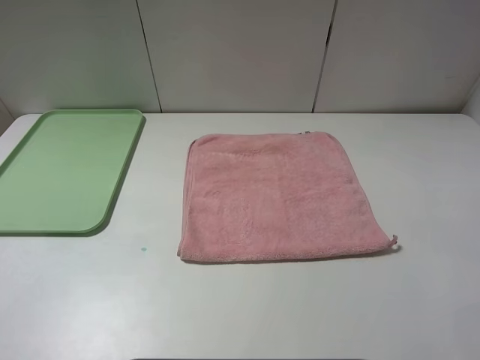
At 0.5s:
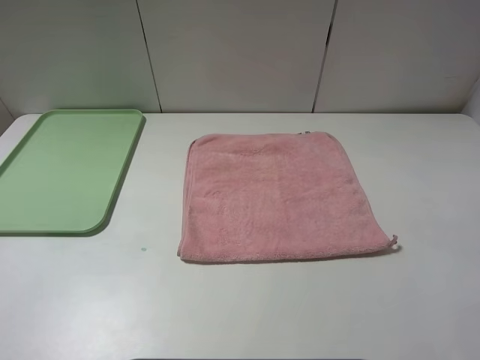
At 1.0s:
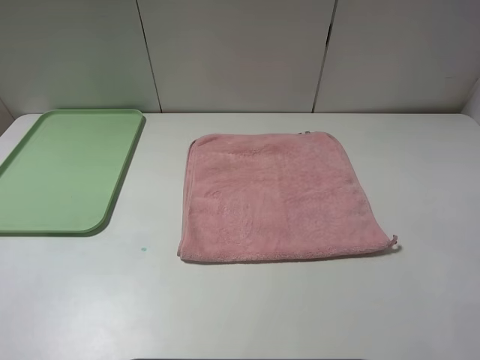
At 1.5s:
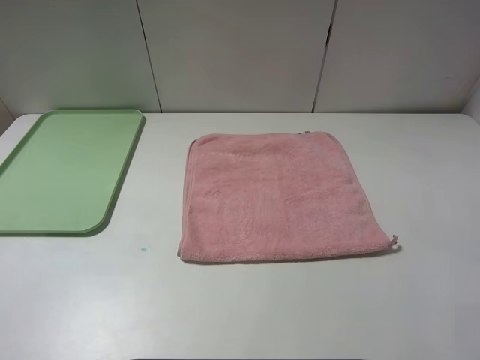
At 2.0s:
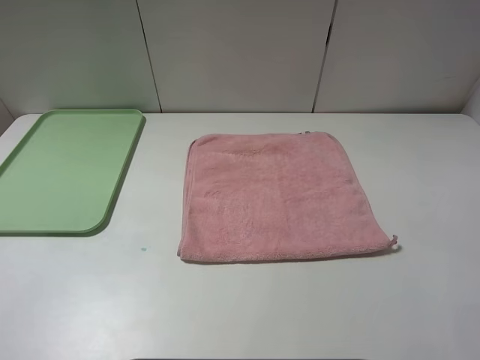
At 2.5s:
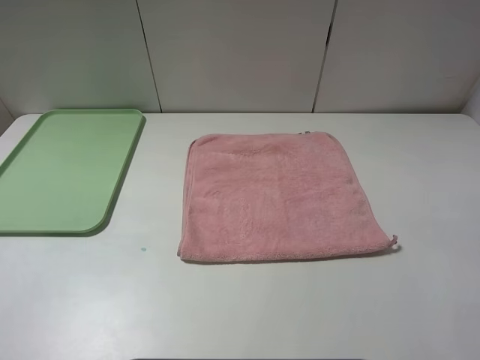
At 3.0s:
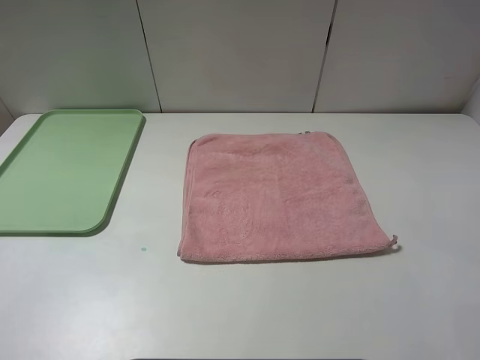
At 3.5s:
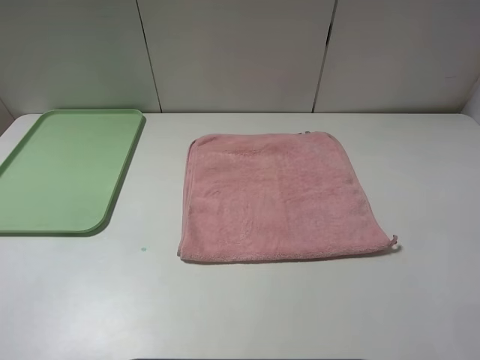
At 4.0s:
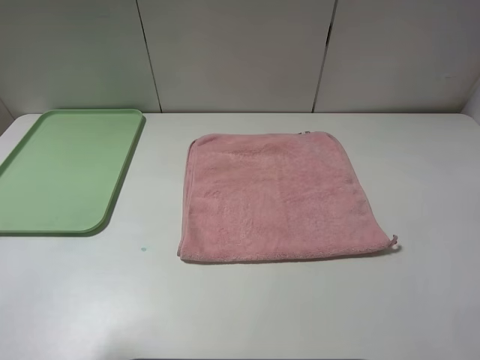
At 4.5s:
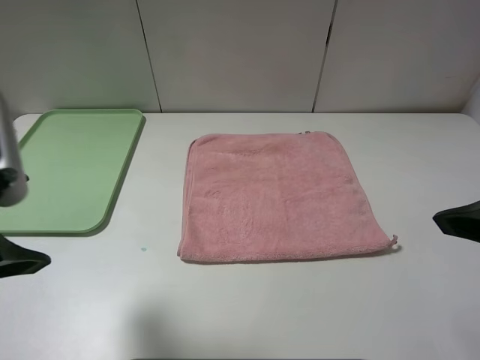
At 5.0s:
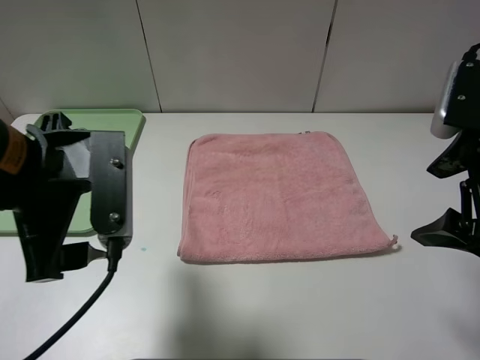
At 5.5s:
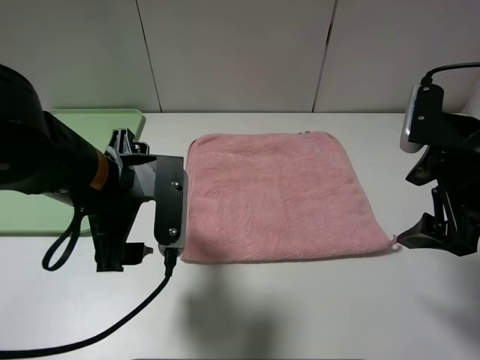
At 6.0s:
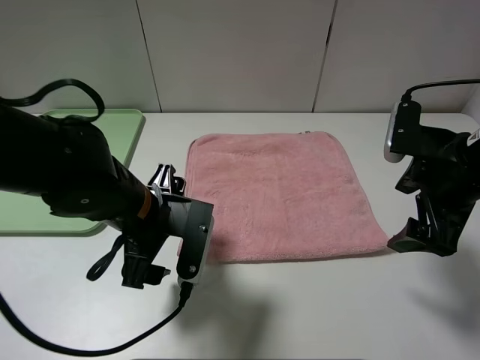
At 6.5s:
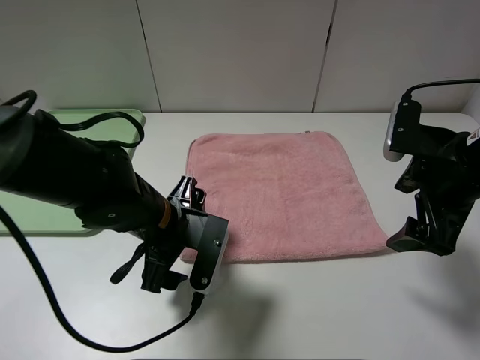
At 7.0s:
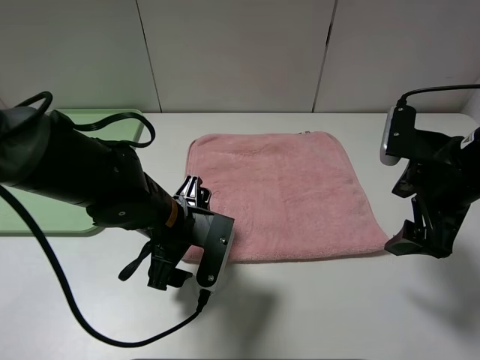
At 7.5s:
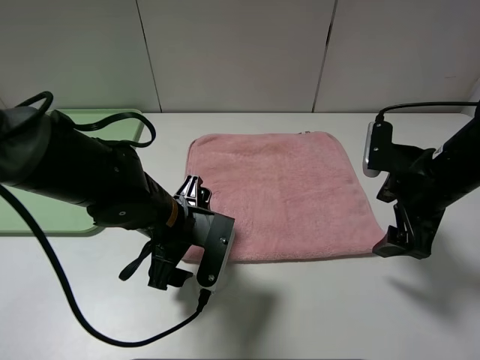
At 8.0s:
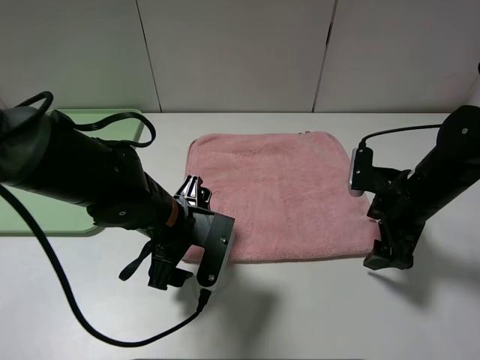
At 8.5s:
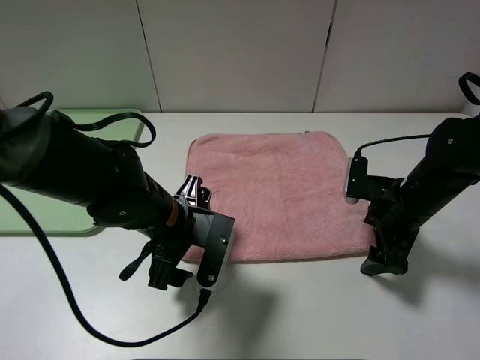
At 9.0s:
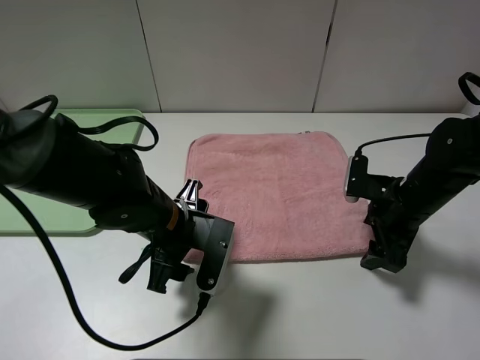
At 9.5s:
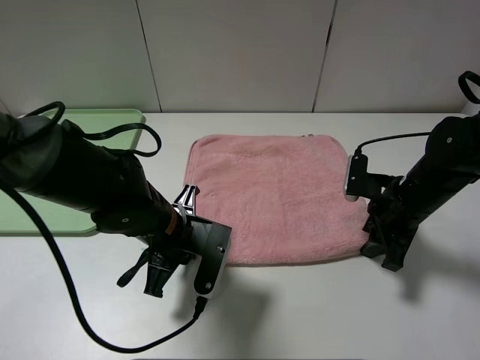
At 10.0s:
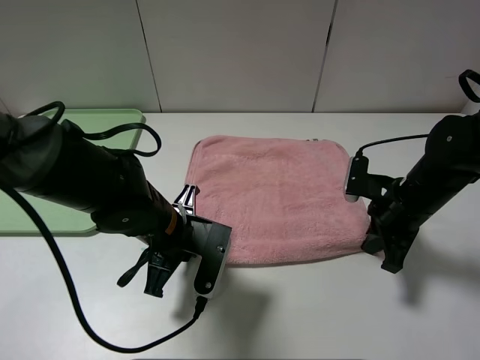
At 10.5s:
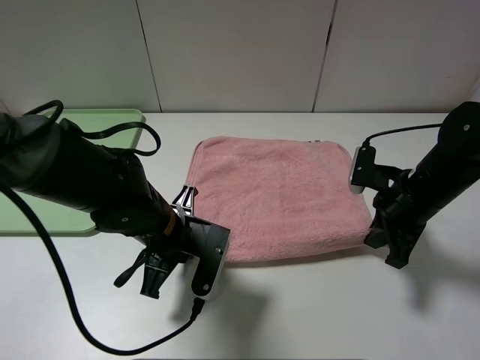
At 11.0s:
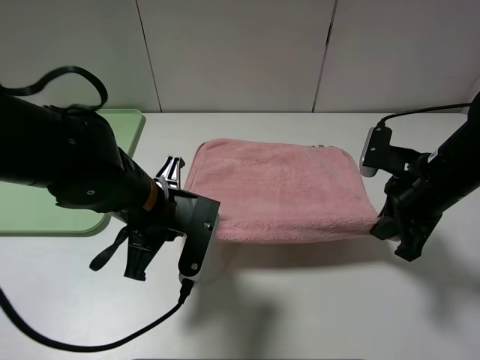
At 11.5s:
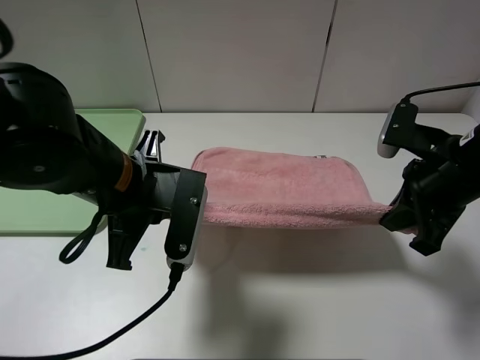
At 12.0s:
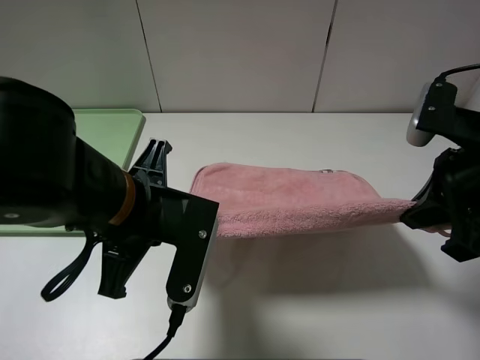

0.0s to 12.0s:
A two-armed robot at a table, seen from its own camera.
0.0s to 2.0s: Both grippers stay about where they are.
4.0s to 6.0s: The right gripper moves forward and downward, roughly 20 cm. Meanwhile the left gripper travels downward, to the right and forward by approximately 25 cm.
6.0s to 8.0s: The right gripper heads downward, covering roughly 10 cm.
8.0s to 10.0s: The right gripper closes; the left gripper closes.
10.0s to 12.0s: The two grippers go some 15 cm upward and backward.

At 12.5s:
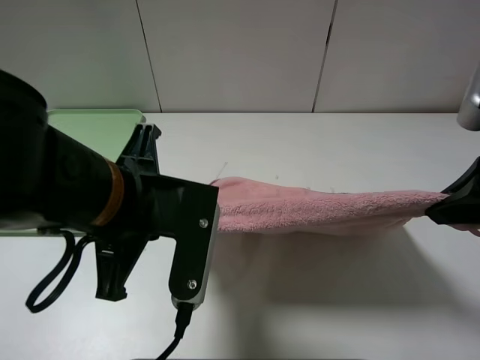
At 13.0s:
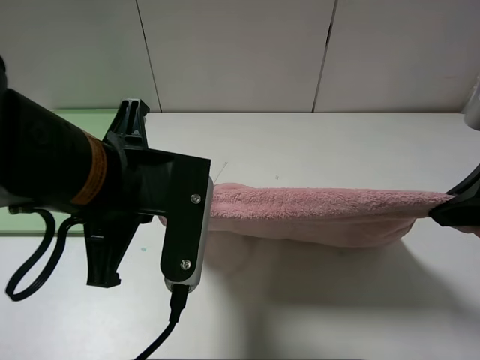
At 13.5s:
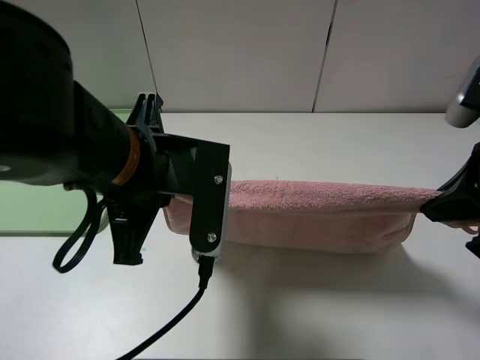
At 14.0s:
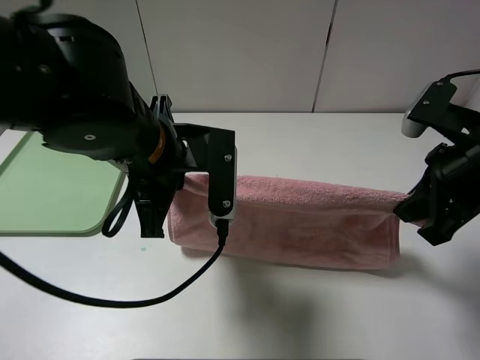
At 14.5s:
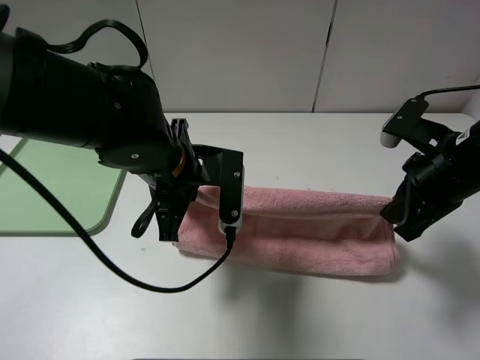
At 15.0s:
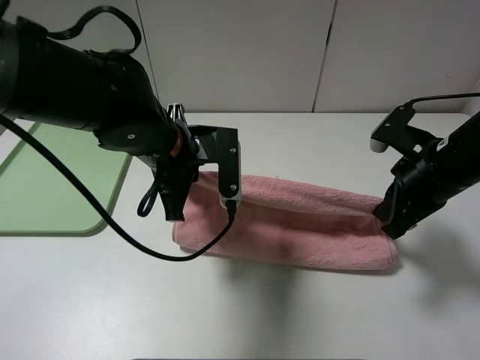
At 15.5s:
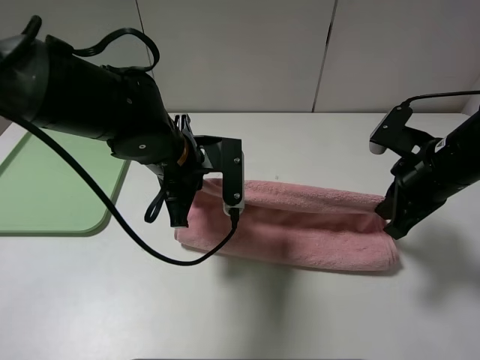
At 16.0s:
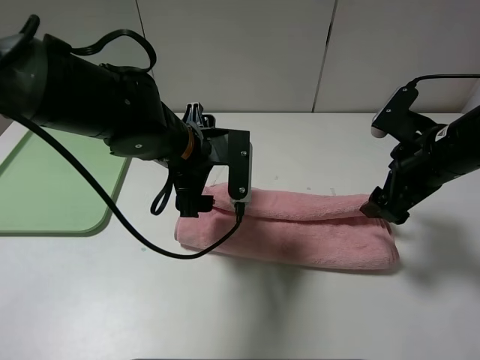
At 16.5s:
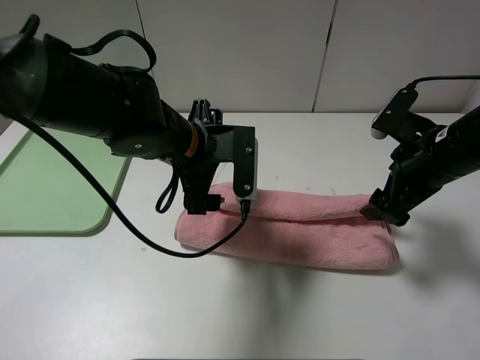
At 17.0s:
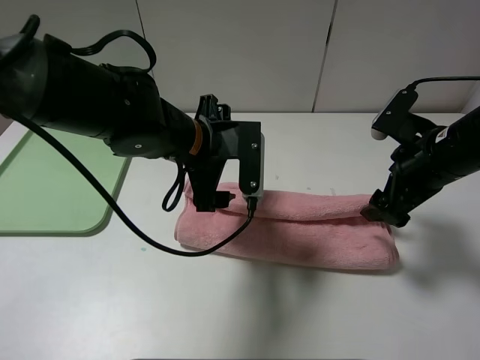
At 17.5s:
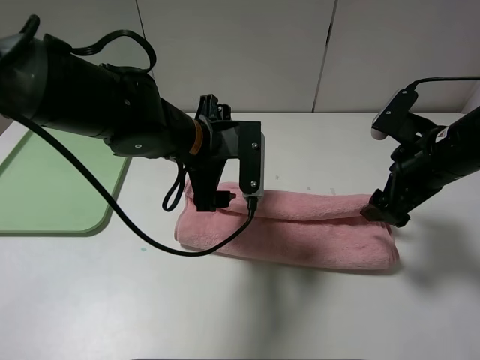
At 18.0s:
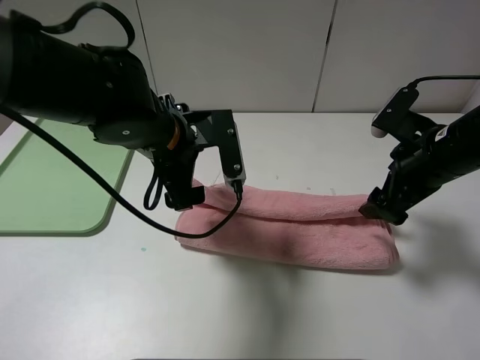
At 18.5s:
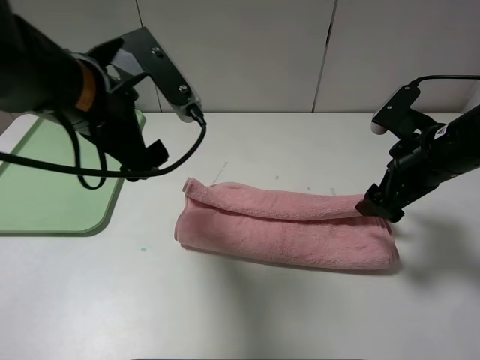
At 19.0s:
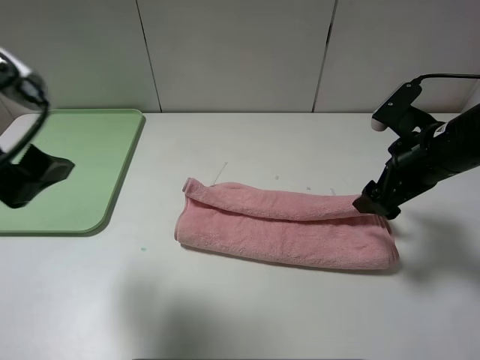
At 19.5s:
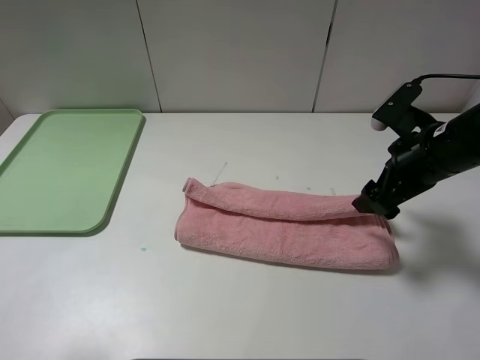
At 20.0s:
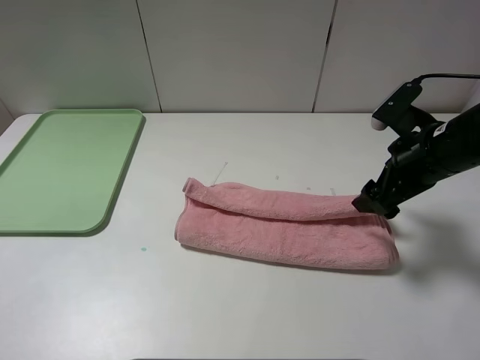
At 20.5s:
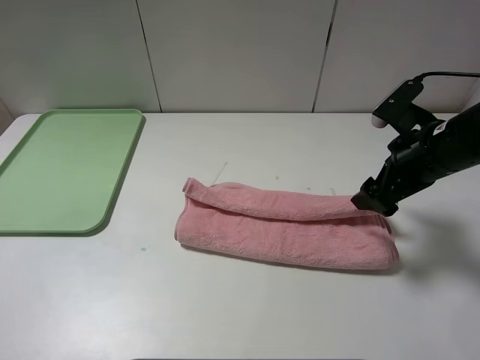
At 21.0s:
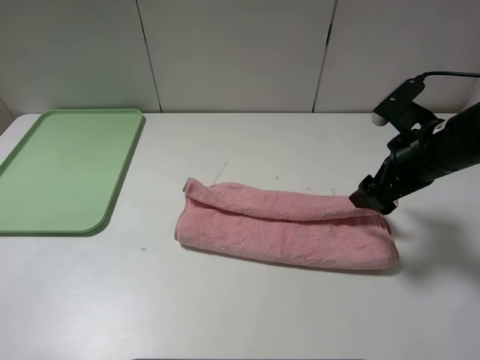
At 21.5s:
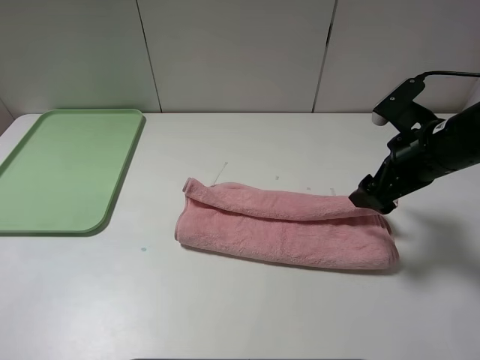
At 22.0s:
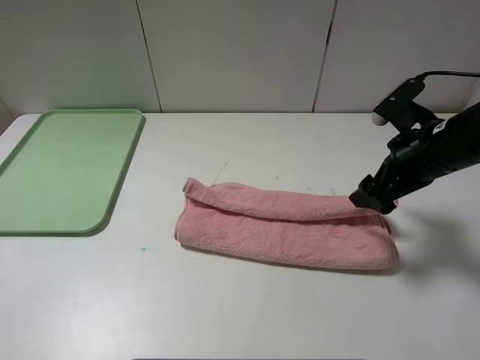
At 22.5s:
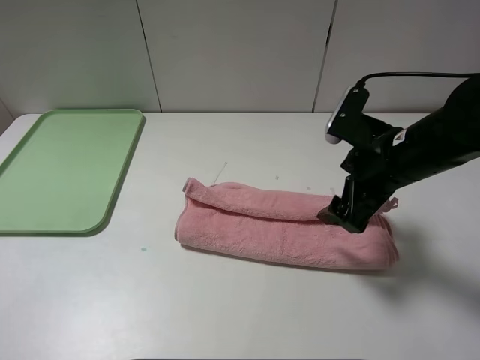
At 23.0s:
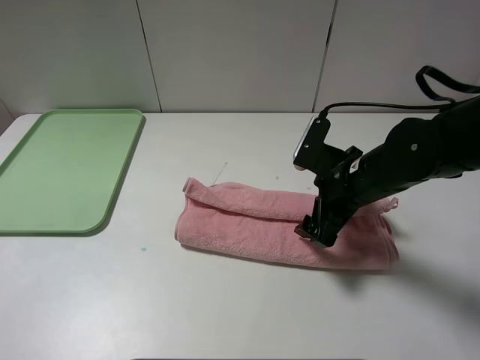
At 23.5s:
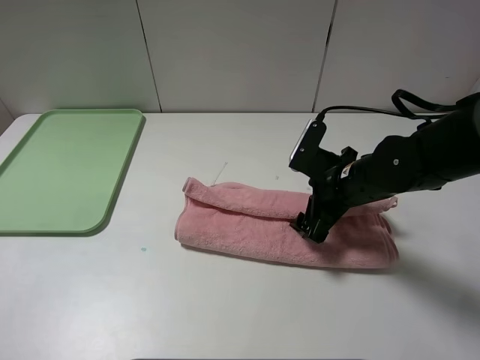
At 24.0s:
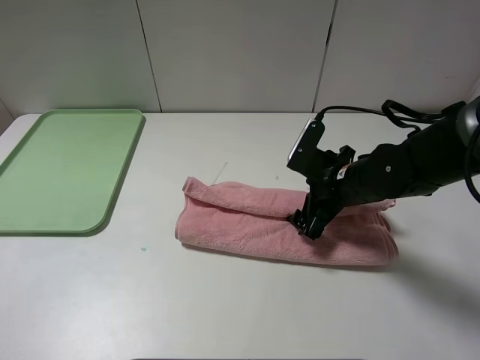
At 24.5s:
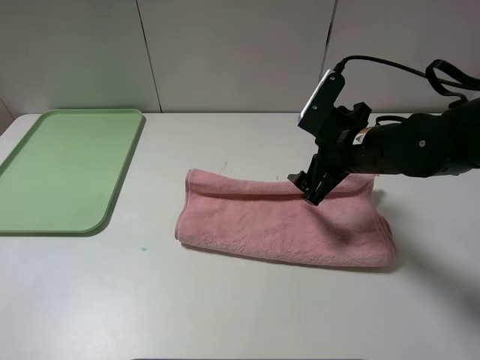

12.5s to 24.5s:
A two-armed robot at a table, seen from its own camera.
12.5s to 14.5s: The left gripper moves forward and downward, roughly 10 cm, while the right gripper moves downward and forward, roughly 10 cm.
14.5s to 16.5s: The right gripper opens up. The left gripper opens its fingers.
16.5s to 18.5s: The left gripper goes some 15 cm upward, to the left and backward.
18.5s to 20.5s: The left gripper heads backward and to the left, covering roughly 25 cm.
20.5s to 22.5s: The right gripper heads to the left, covering approximately 5 cm.
22.5s to 24.5s: The right gripper moves approximately 10 cm downward and comes back.

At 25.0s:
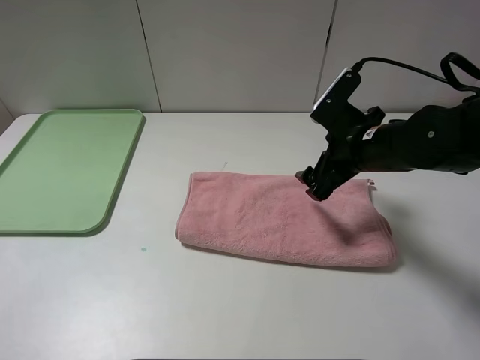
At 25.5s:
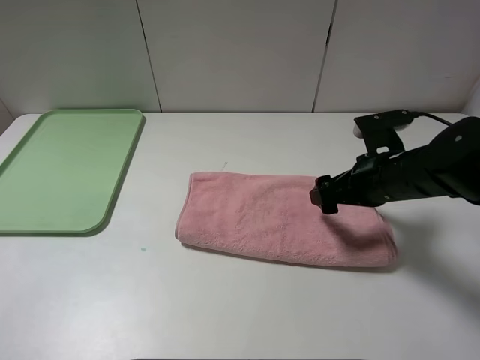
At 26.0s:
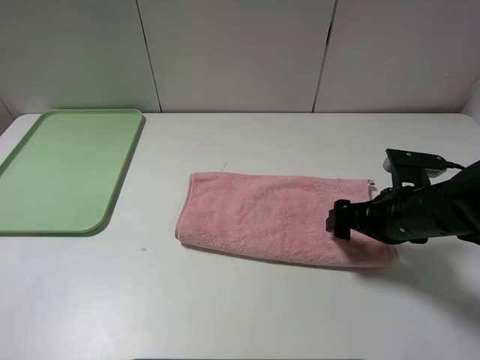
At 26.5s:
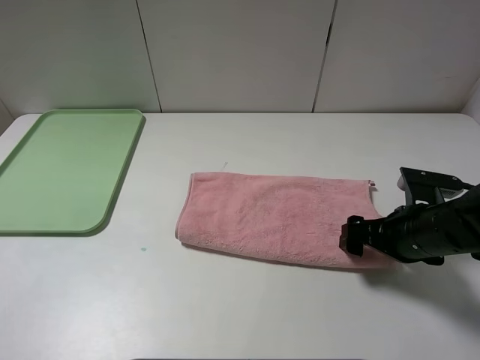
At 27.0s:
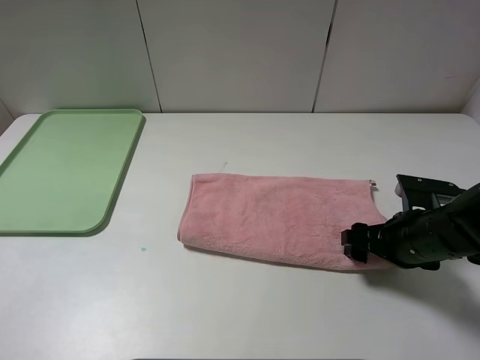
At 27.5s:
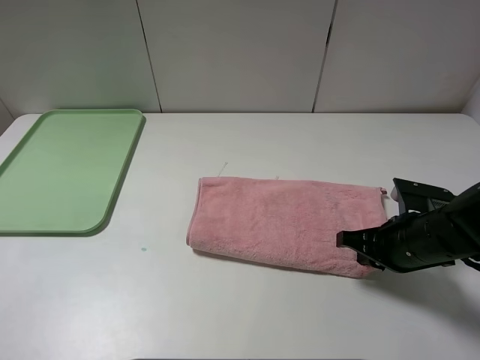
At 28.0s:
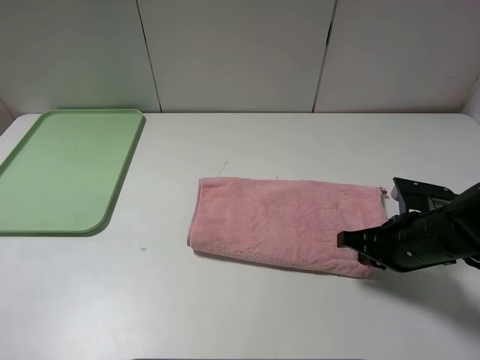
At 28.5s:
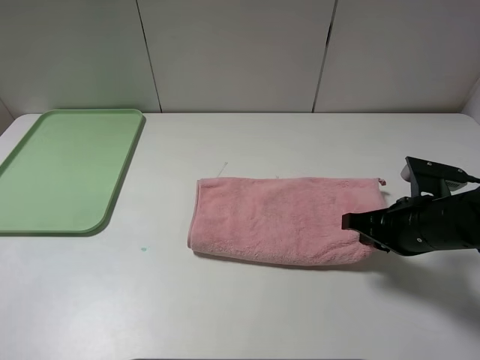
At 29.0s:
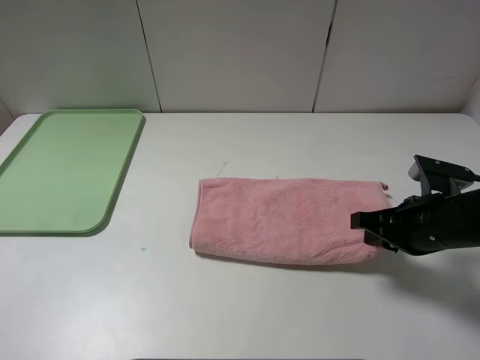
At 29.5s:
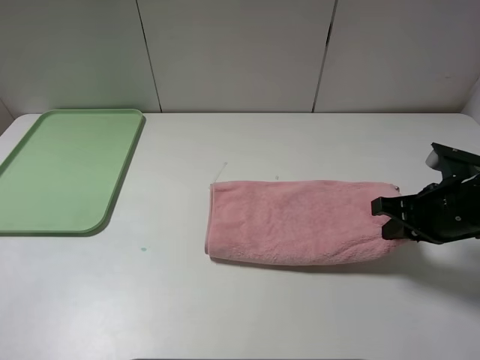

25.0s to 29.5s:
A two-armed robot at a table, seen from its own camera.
25.0s to 27.0s: The right gripper moves backward, downward and to the right, roughly 10 cm.
27.0s to 29.5s: The right gripper shifts about 5 cm upward, and closes its fingers.
